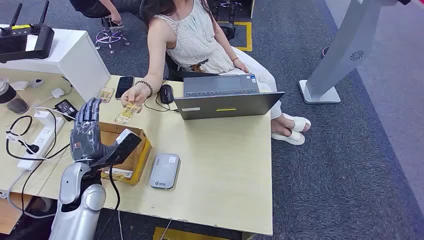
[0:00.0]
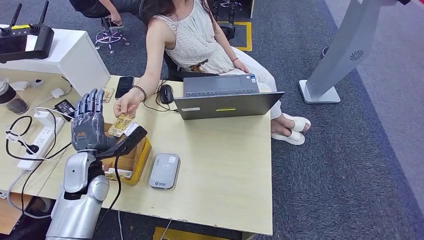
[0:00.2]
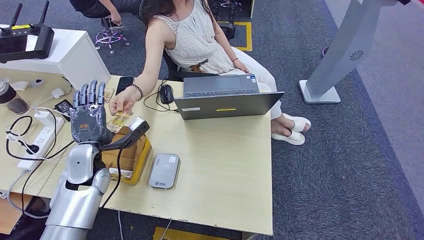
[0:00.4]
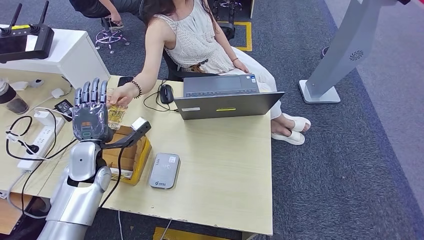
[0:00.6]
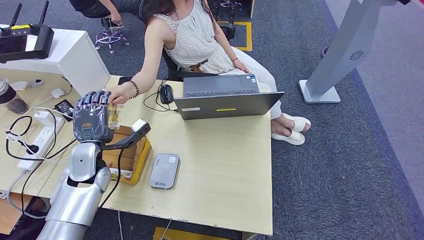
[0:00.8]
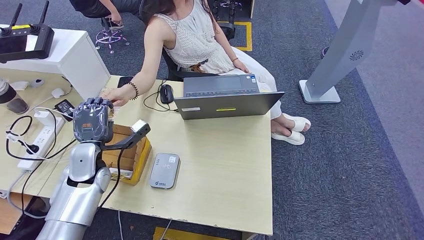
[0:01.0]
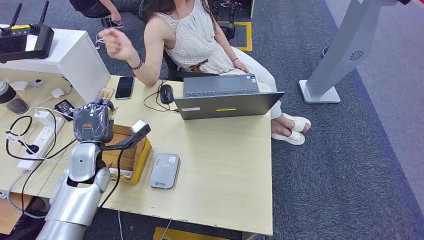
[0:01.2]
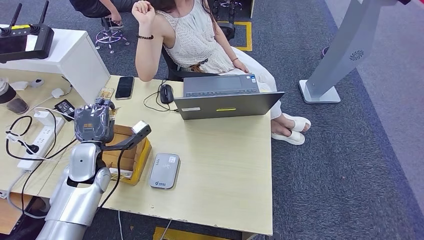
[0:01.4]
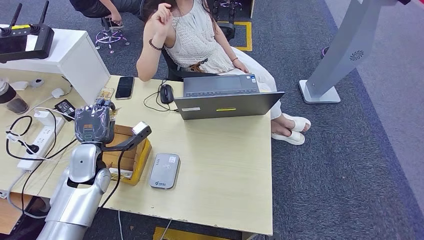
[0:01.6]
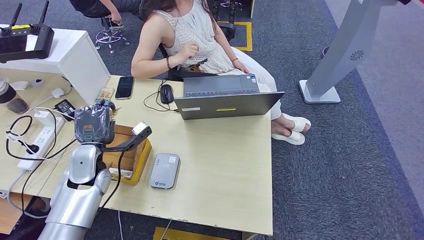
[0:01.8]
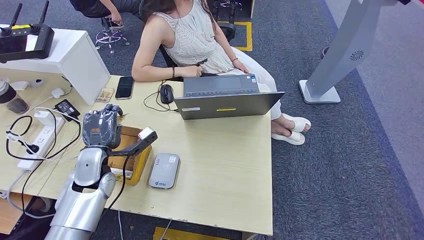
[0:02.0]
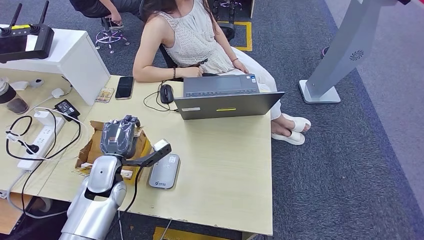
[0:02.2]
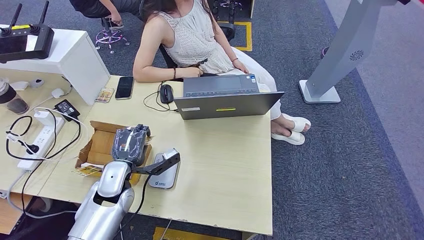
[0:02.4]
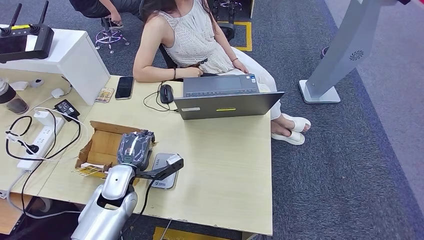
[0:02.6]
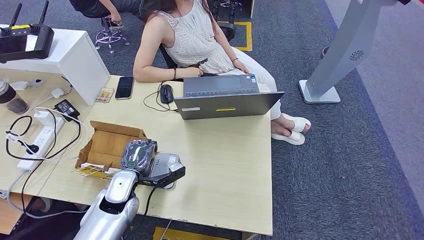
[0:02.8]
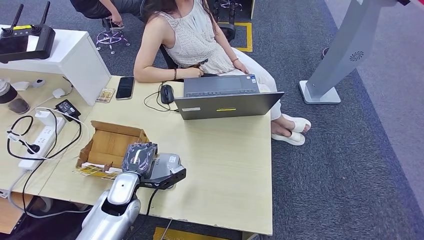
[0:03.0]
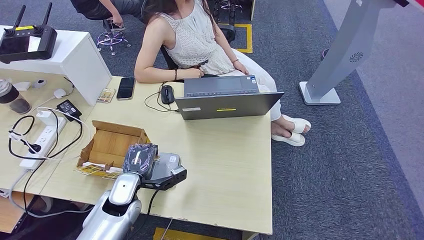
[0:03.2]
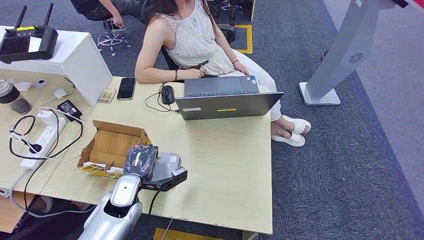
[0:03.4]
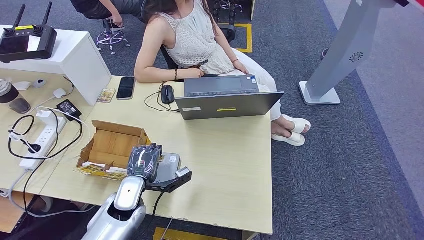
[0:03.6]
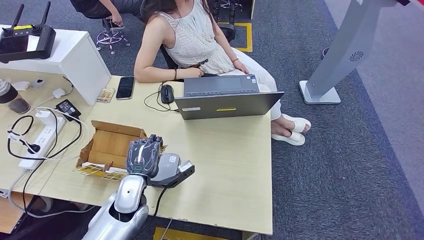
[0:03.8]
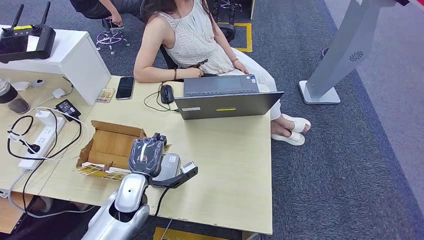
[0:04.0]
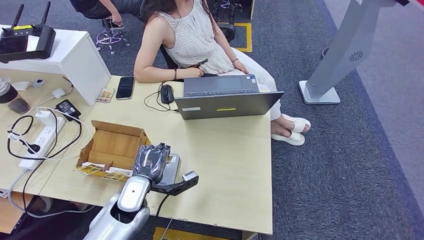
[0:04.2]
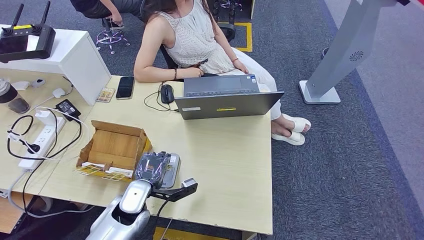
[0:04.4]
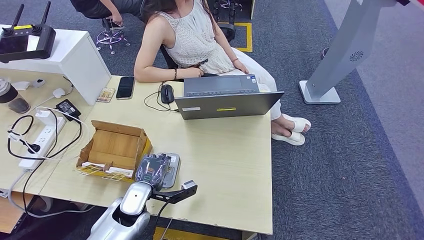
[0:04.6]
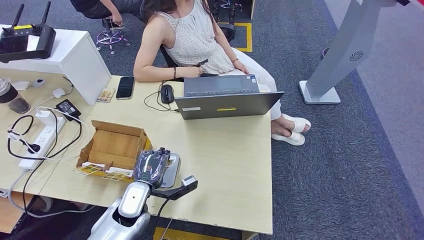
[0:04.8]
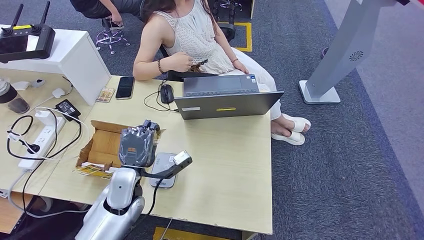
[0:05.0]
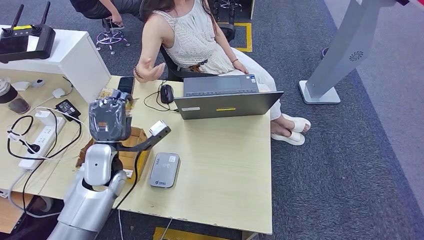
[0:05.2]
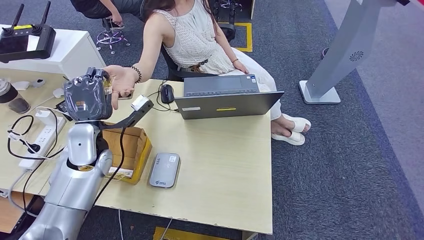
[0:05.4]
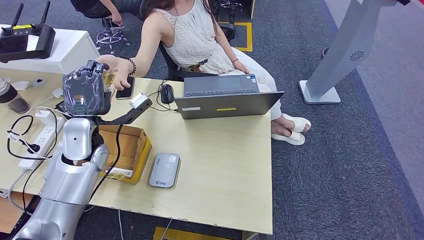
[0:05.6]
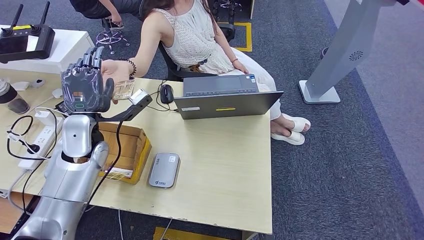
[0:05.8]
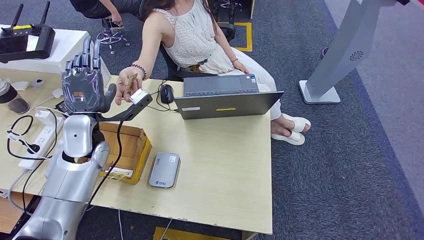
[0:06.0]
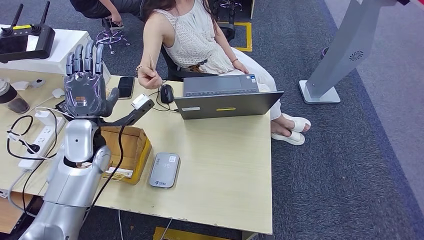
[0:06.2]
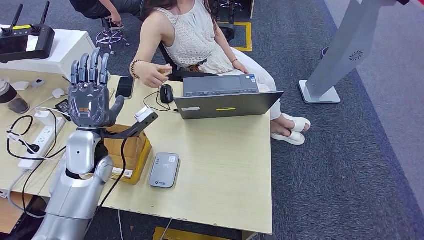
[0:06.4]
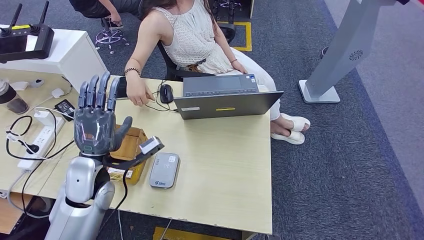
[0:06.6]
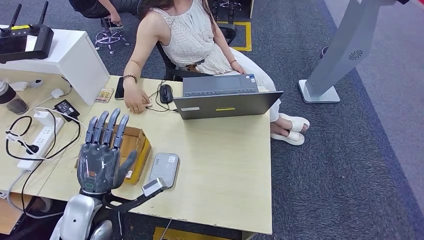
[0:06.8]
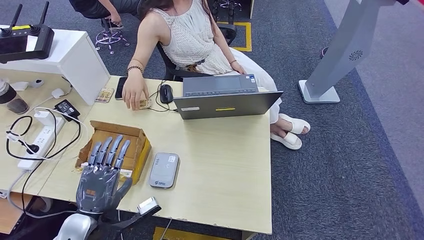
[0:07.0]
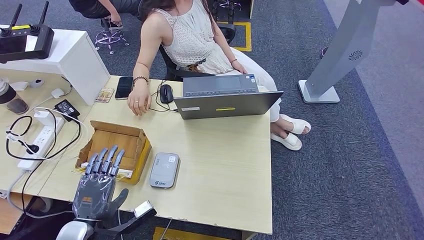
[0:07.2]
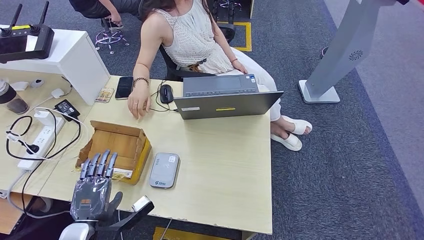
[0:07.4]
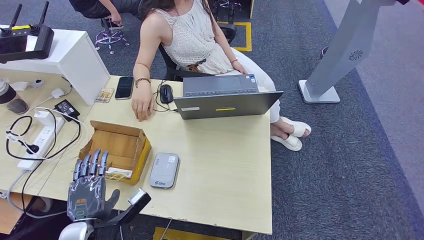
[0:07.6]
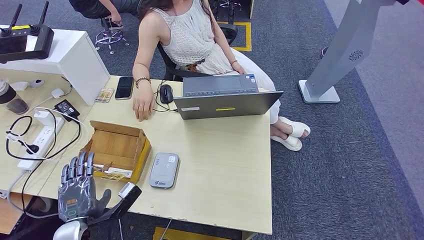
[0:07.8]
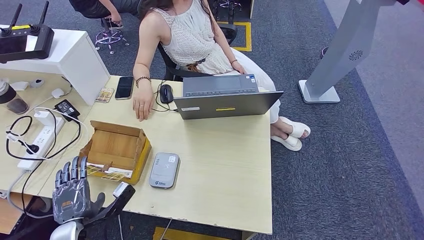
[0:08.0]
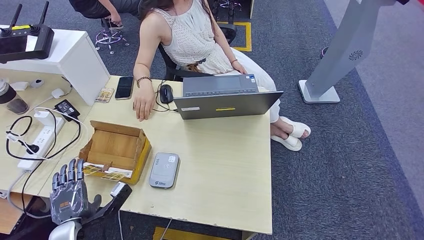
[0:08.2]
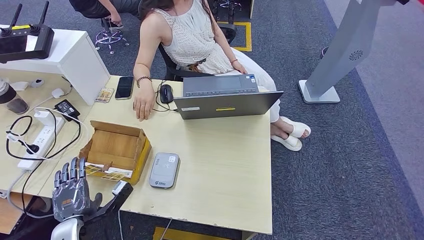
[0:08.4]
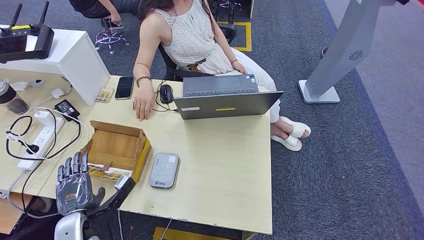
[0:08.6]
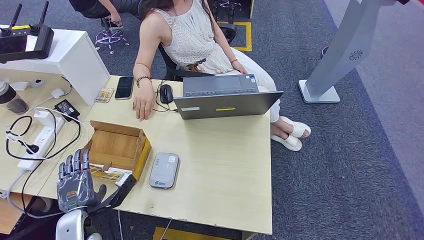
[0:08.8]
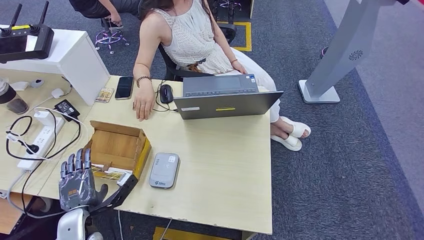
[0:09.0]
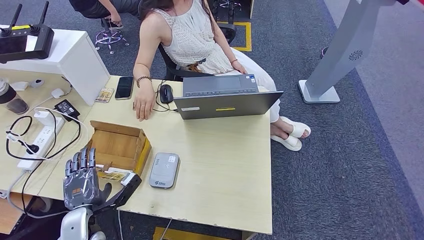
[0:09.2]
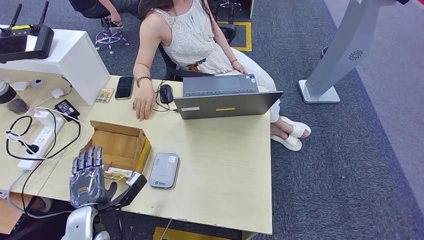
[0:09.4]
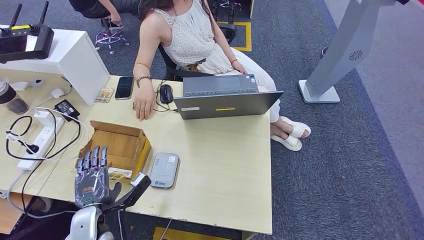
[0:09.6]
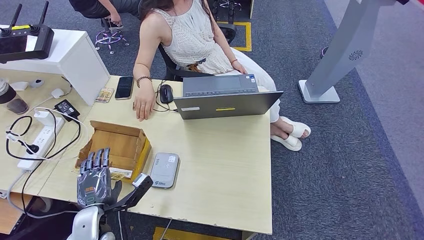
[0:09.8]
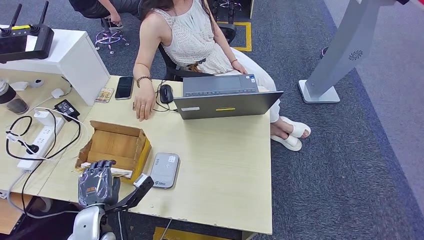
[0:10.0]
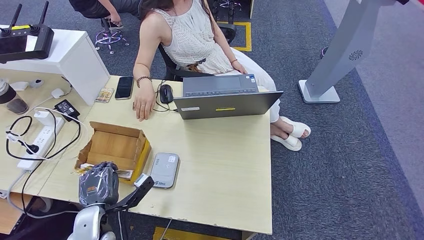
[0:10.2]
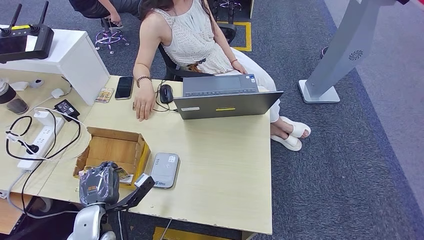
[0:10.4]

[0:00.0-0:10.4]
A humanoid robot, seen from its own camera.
Step, 0:00.0 to 0:01.6: Take the ID card from the person's hand.
Step, 0:02.2 to 0:04.6: Place the ID card on the card reader.
Step, 0:05.6 to 0:06.8: Hand the ID card to the person.
0:01.4 to 0:03.0: The left hand goes roughly 15 cm to the right, downward and backward.
0:03.0 to 0:04.4: The hands stay close to where they were, moving slightly.
0:04.4 to 0:06.0: The left hand goes approximately 20 cm upward, forward and to the left.
0:06.0 to 0:07.4: The left hand travels backward and downward by about 25 cm.
0:07.4 to 0:10.4: The hands move only a little.

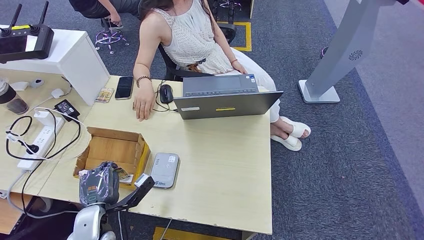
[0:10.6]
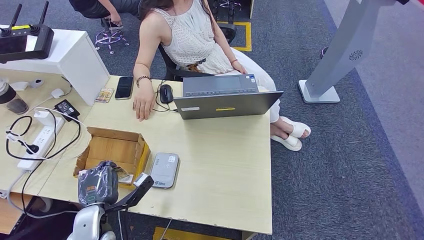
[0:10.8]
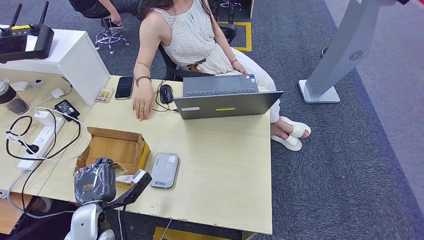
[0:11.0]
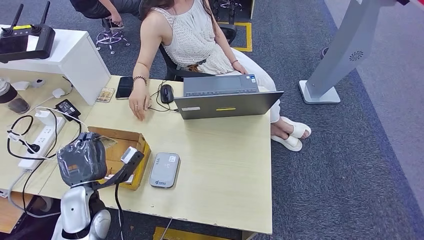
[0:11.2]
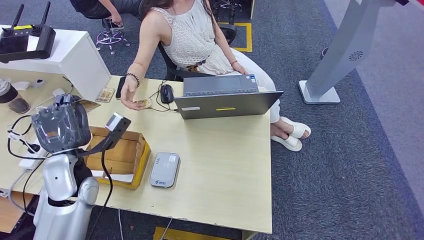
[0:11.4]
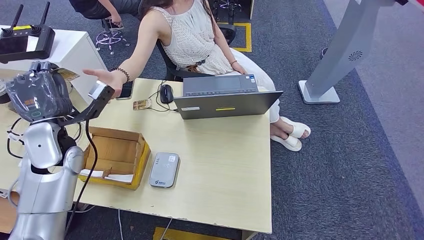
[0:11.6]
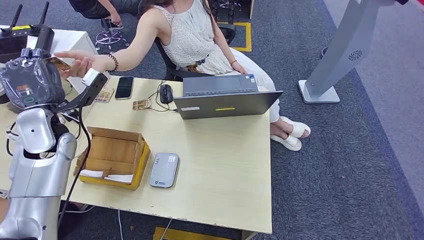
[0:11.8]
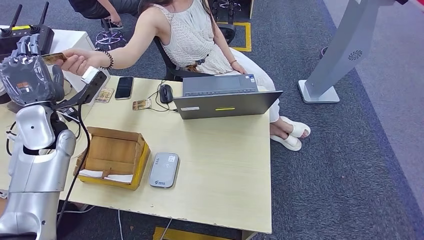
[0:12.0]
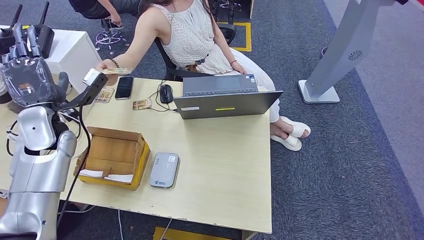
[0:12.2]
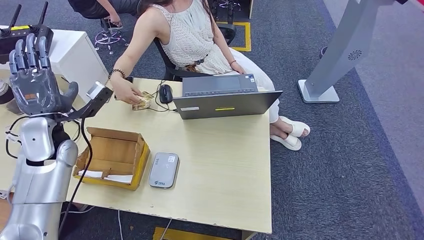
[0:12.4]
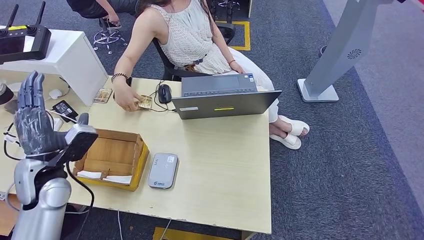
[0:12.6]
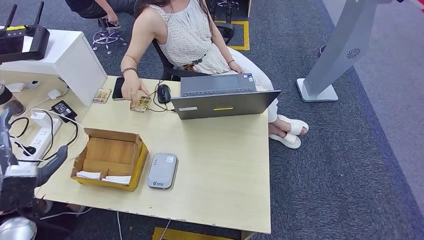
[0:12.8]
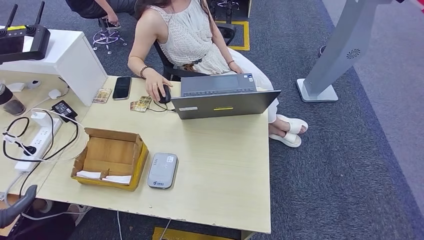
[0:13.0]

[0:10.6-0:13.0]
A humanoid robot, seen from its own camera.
Step, 0:11.4 to 0:13.0: Hand the room key to the person.
0:10.6 to 0:11.8: The left hand travels forward, upward and to the left by some 30 cm.
